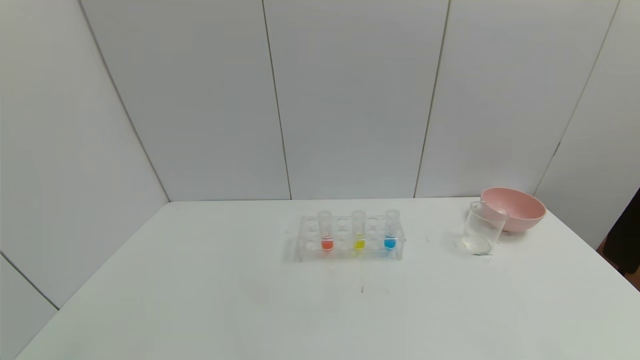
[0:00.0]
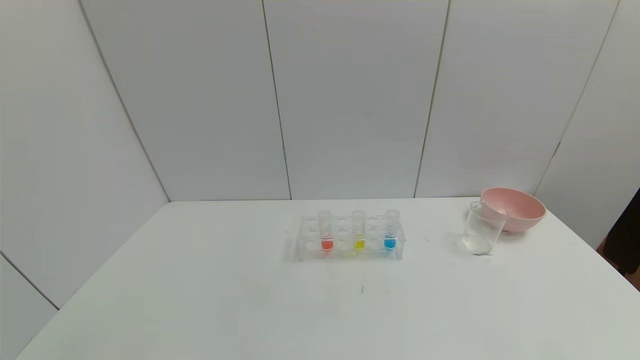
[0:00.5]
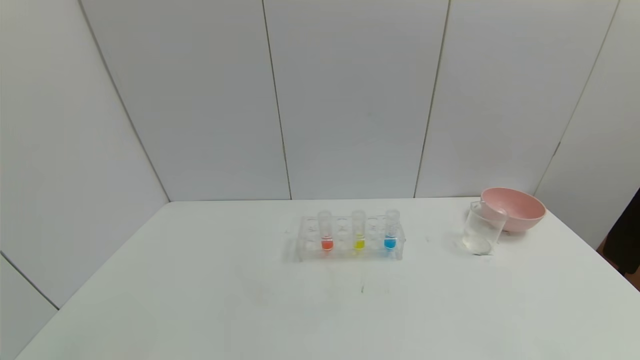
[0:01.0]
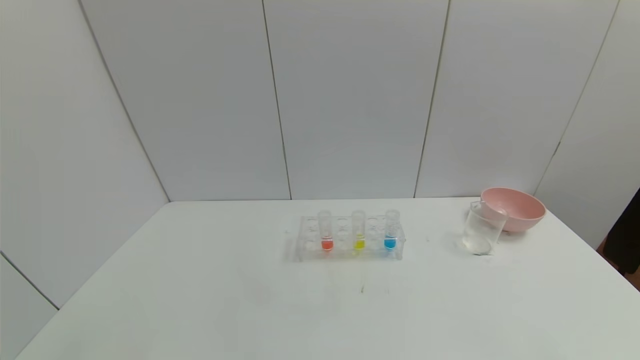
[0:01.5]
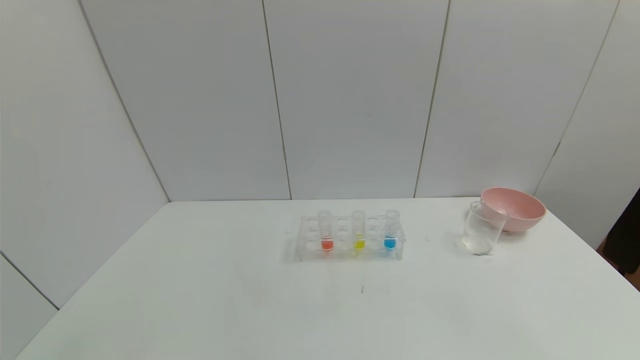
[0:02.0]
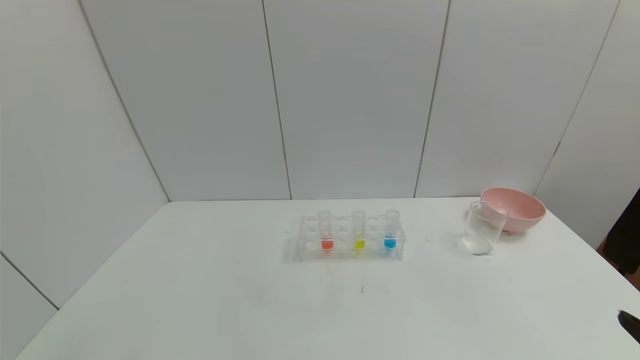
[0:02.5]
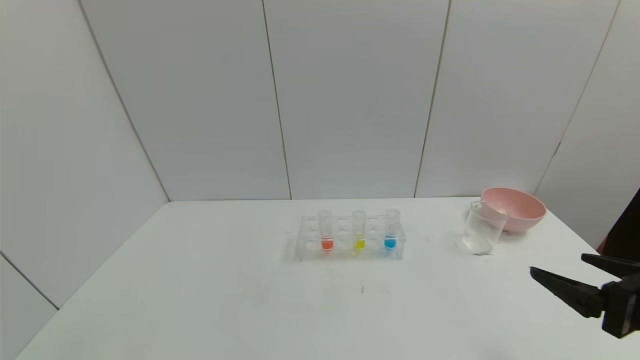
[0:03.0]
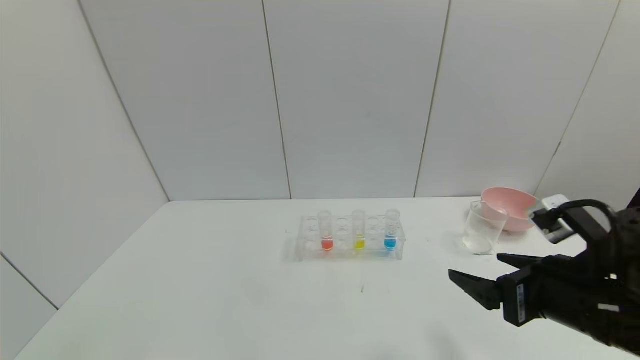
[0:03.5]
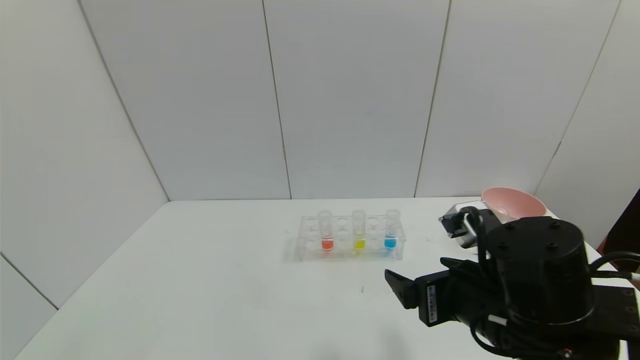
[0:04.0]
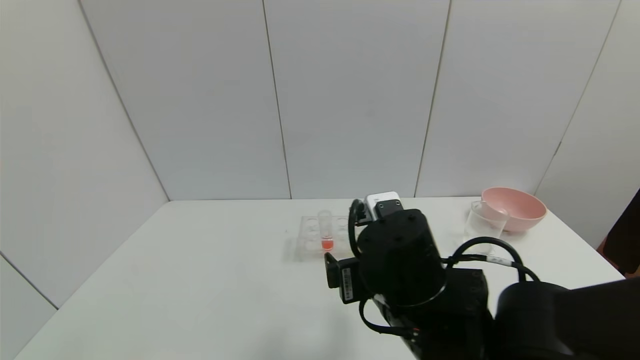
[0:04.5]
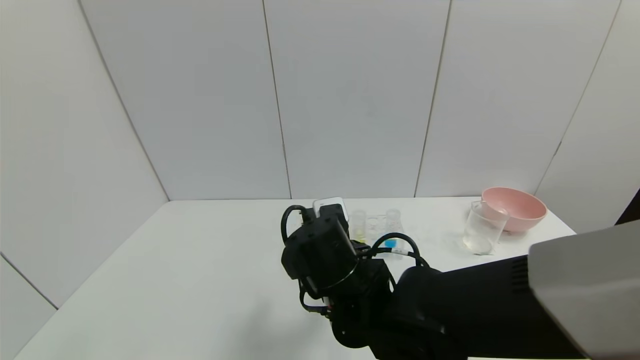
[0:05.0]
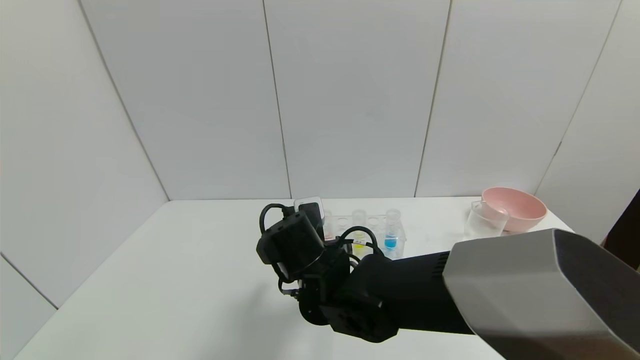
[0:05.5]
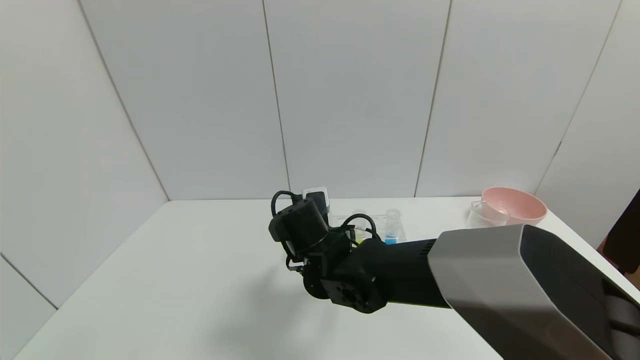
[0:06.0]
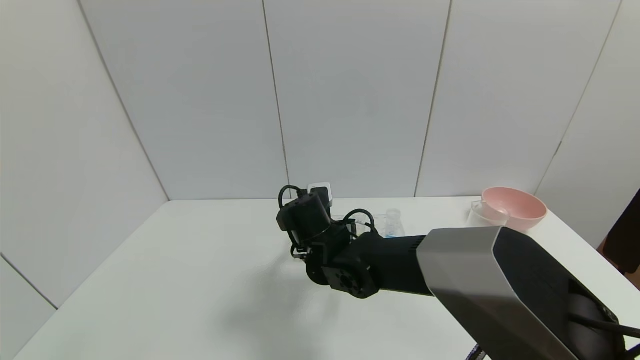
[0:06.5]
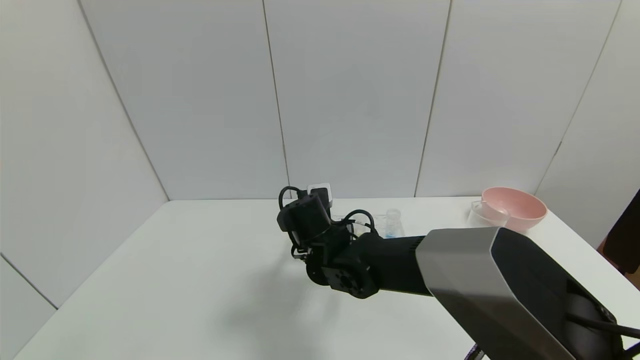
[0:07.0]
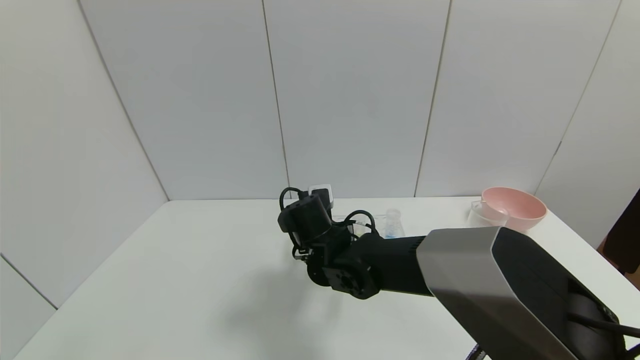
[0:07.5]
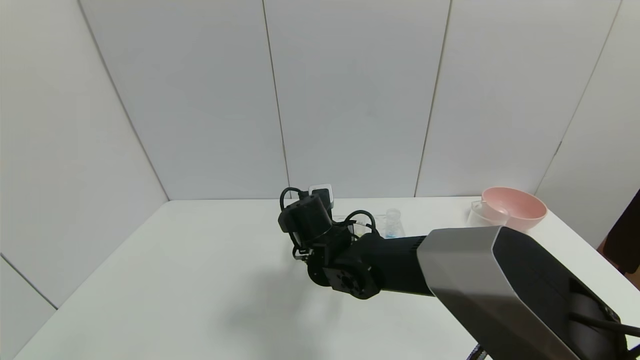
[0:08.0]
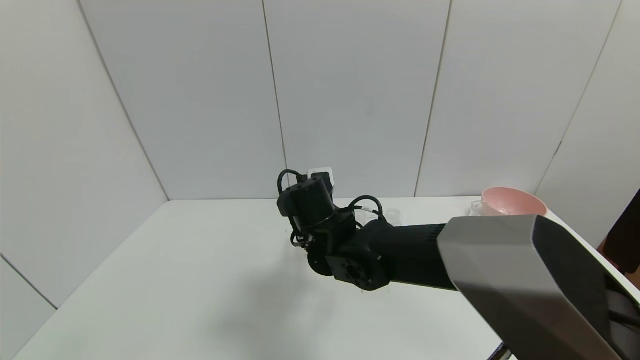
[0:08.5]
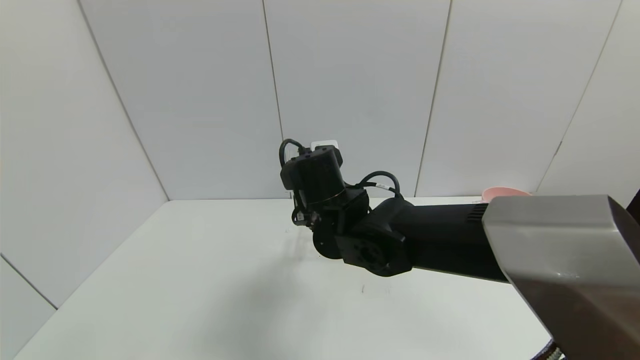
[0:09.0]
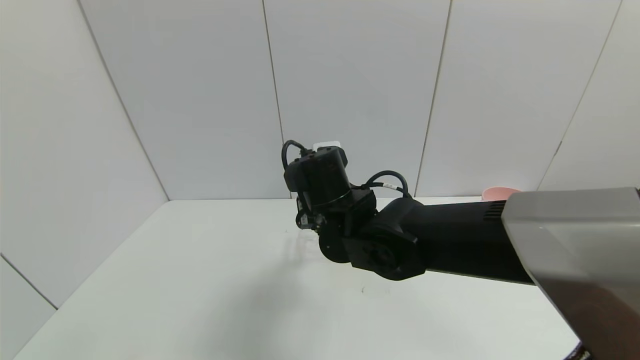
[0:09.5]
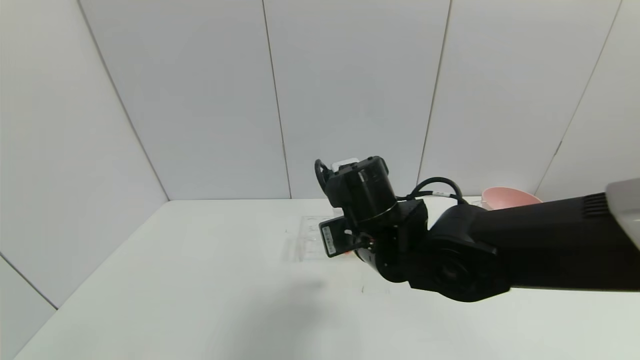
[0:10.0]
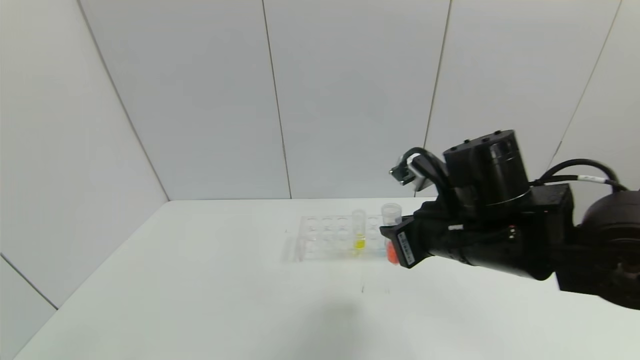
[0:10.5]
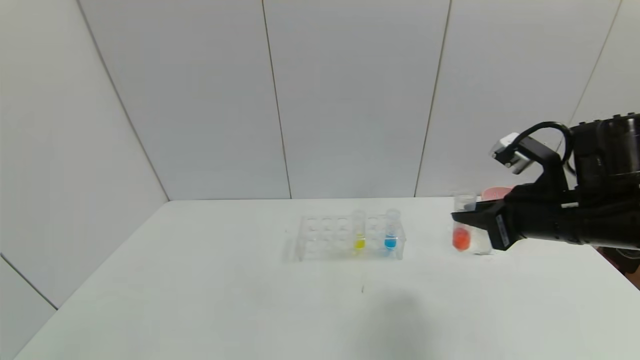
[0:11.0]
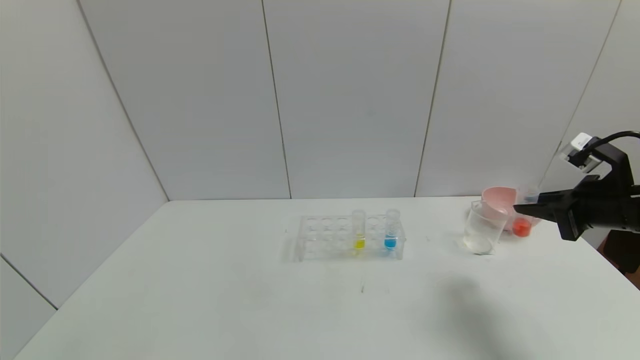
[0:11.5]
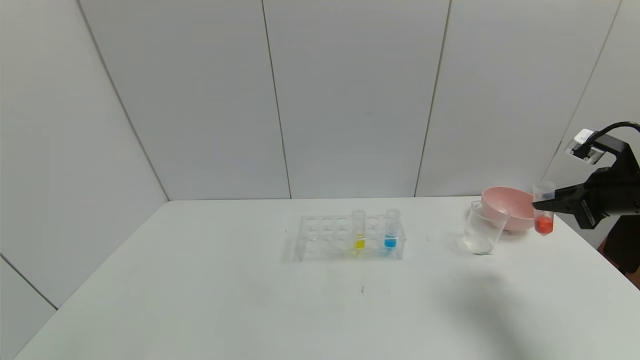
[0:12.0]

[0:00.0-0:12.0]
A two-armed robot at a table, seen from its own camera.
Task of the whole recording: pick up the test tube with yellow pigment and the test tube with red pigment by grippers and pour them into the beaker.
Step, 0:00.0 to 0:07.0: Grasp the red reagent with the right gripper.
0:02.0 to 0:04.0: The right gripper is displaced forward and to the left by about 30 cm.
0:04.0 to 0:06.0: The right gripper travels to the left and forward by some 25 cm.
0:06.0 to 0:08.0: The right gripper closes.
0:08.0 to 0:10.0: The right gripper shifts some 10 cm upward, to the right and backward.
0:10.0 to 0:12.0: The right gripper is displaced to the right by approximately 35 cm.

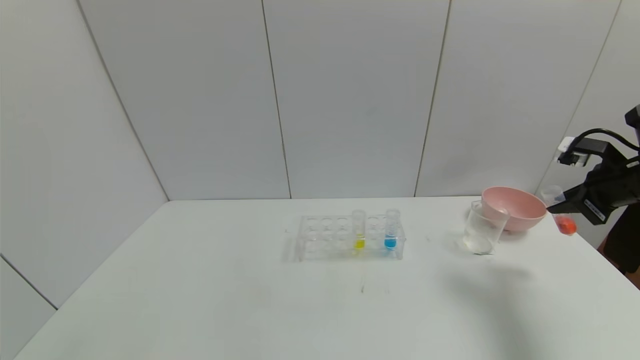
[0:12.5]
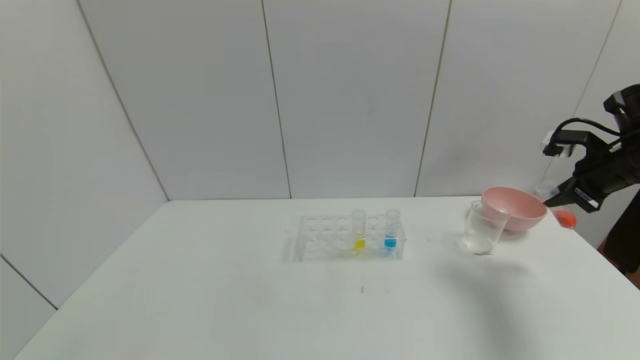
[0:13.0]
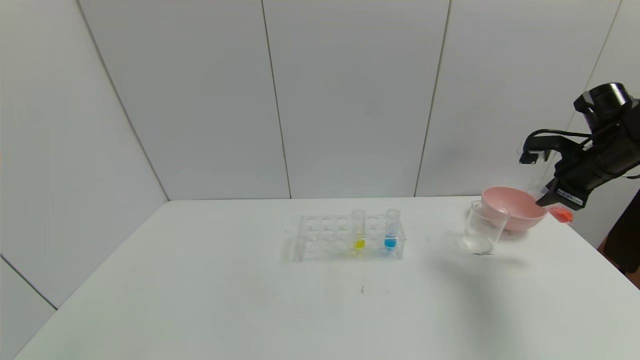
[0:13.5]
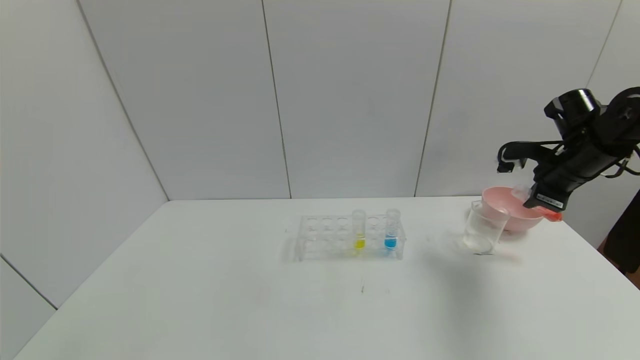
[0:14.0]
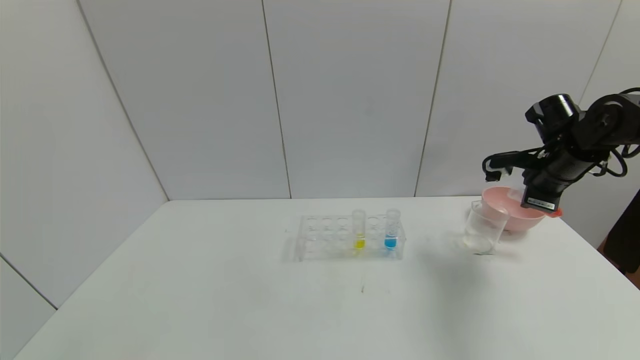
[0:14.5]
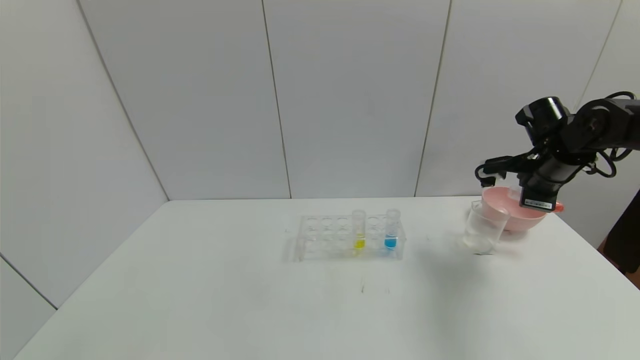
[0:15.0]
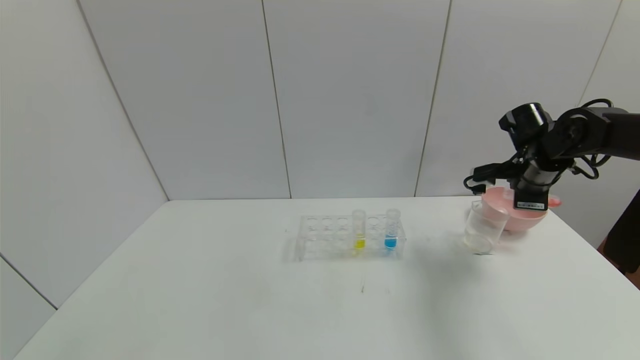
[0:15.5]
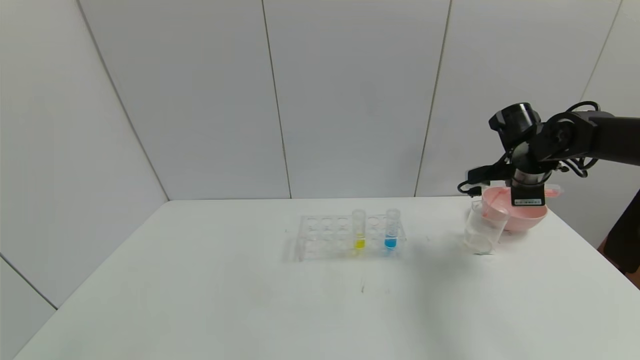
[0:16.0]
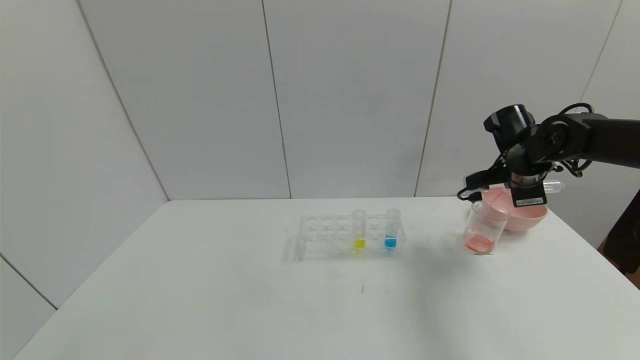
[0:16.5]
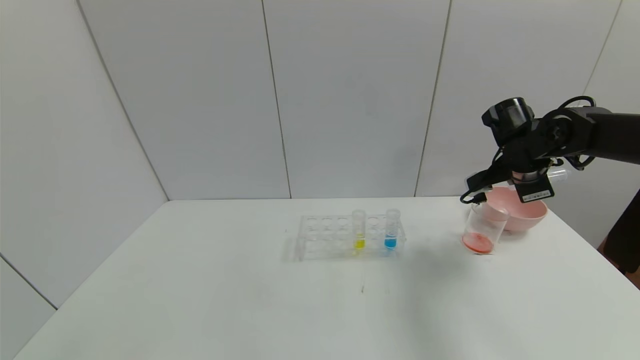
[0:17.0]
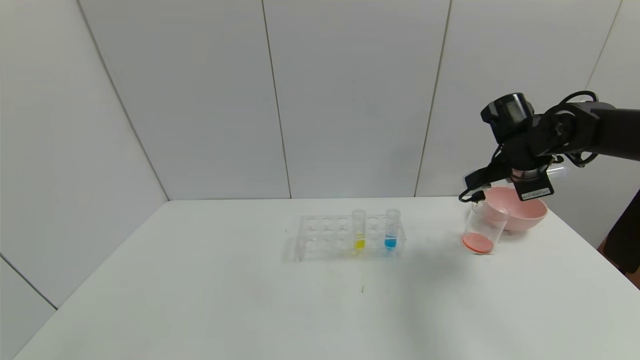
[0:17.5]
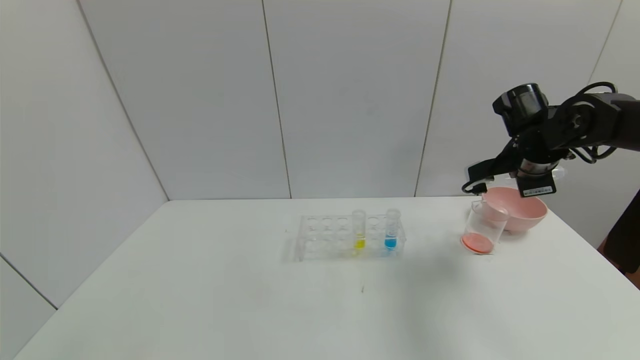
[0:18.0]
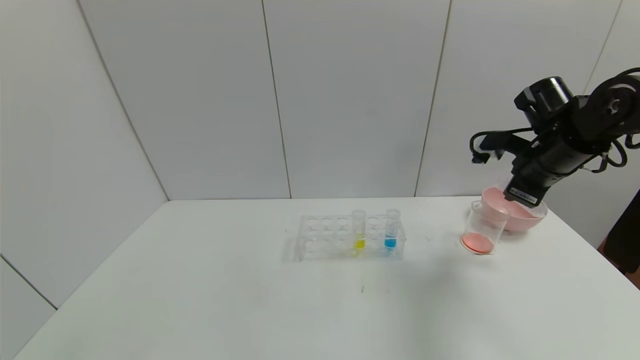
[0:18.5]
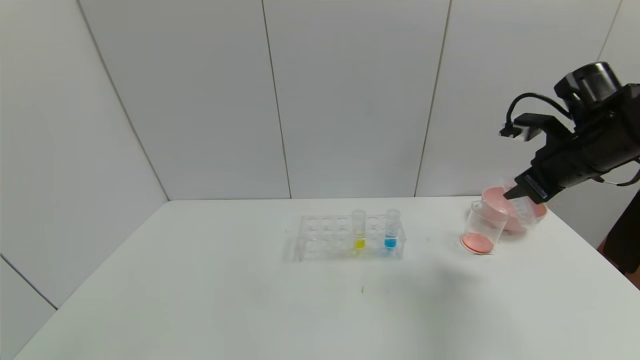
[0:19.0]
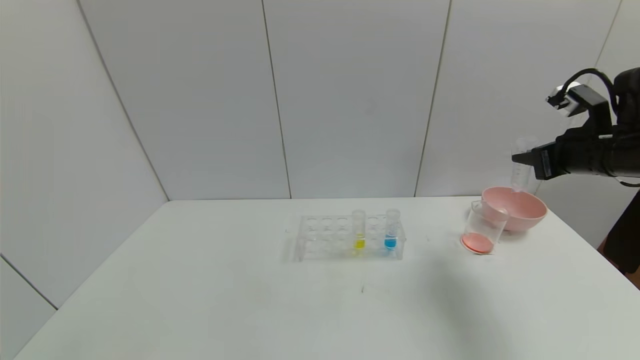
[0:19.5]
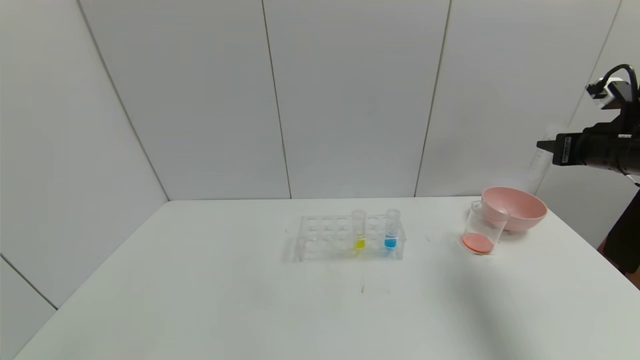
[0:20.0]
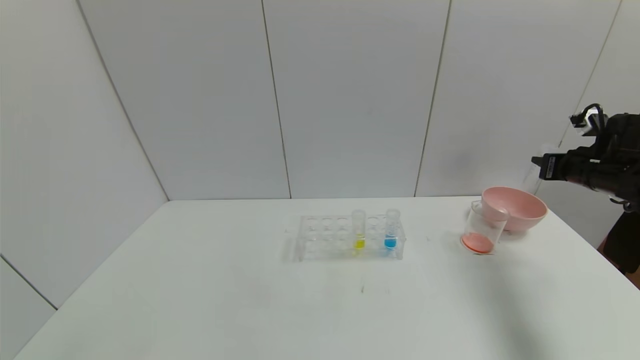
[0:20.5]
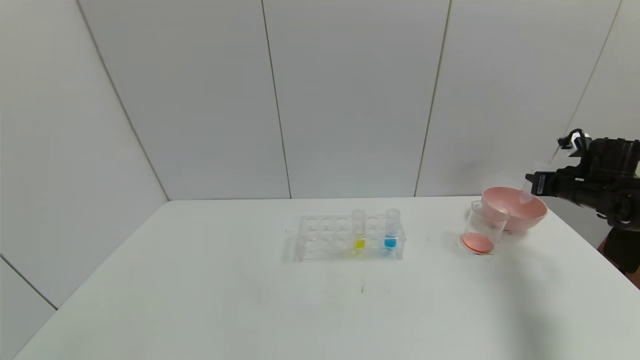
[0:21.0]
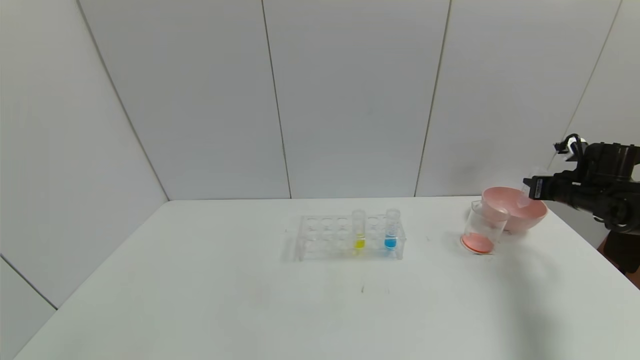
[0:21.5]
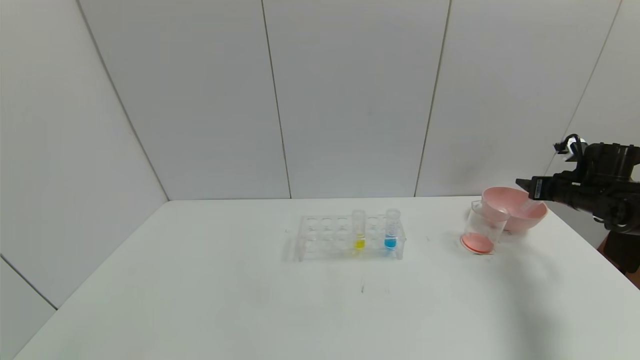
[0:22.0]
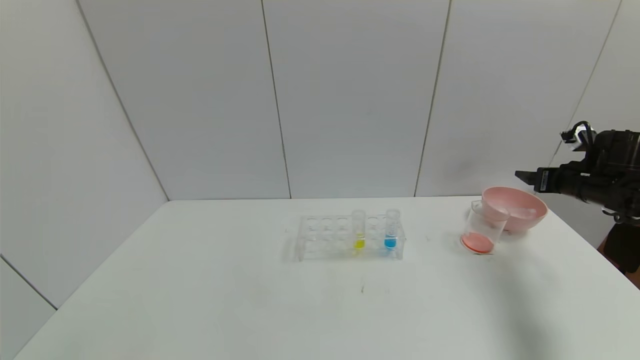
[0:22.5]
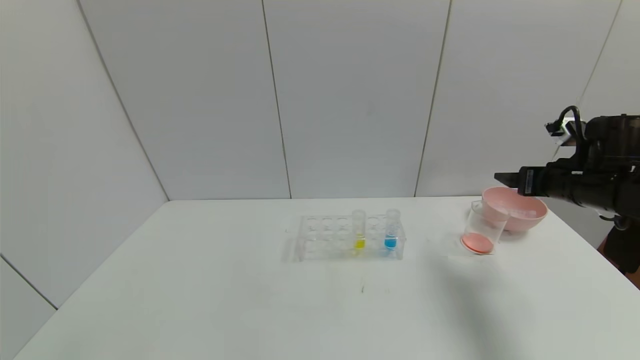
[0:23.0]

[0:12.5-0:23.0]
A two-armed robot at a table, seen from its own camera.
Task of the whole recording: pick up the test tube with yellow pigment and the test tube with red pigment by grippers and pour them into the beaker.
Step, 0:12.5 to 0:16.5: Pour the red reagent into the graduated cylinder with the right gripper.
Step, 0:17.0 to 0:22.0: Place the test tube into the pink bowl with the right gripper.
0:12.5 to 0:14.5: The right gripper heads to the left and forward, covering some 10 cm.
0:14.5 to 0:16.5: The right gripper shifts by approximately 5 cm.
0:16.5 to 0:19.0: The right gripper goes some 10 cm backward and upward.
0:19.0 to 0:21.0: The right gripper shifts about 20 cm to the right, downward and forward.
0:21.0 to 0:23.0: The right gripper is displaced to the left, backward and upward by roughly 15 cm, and opens up.
